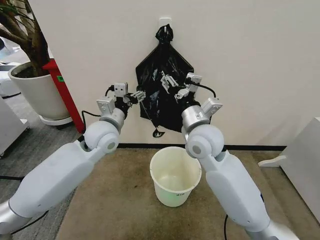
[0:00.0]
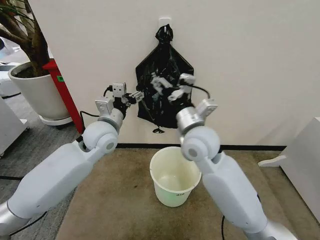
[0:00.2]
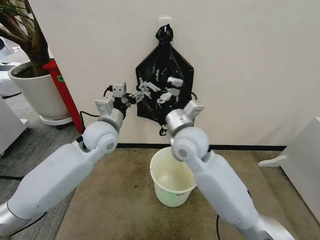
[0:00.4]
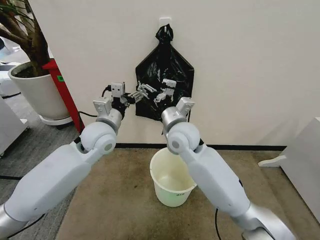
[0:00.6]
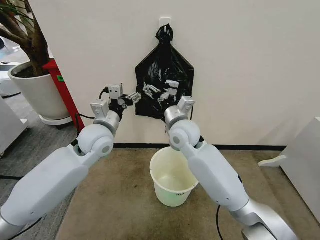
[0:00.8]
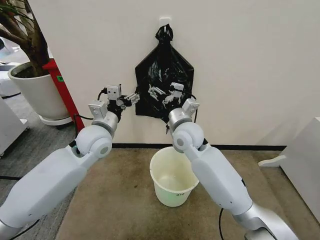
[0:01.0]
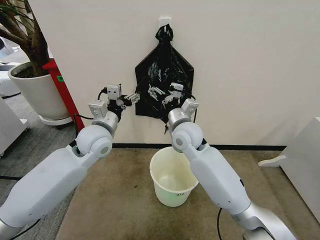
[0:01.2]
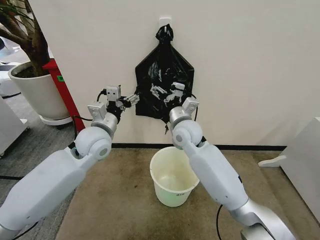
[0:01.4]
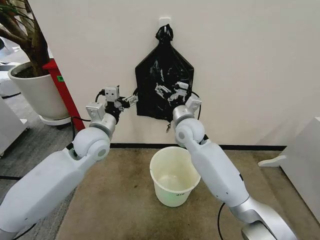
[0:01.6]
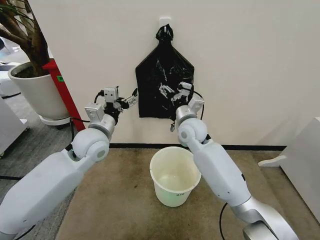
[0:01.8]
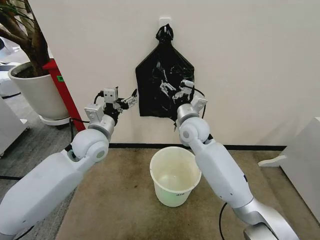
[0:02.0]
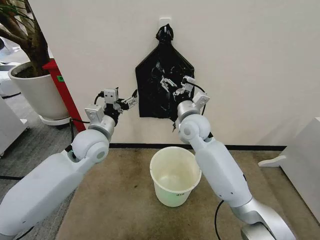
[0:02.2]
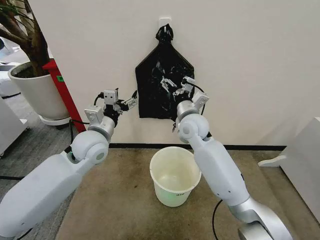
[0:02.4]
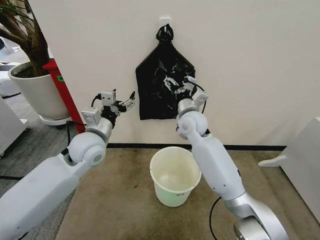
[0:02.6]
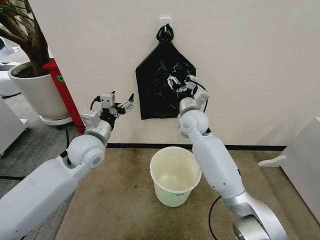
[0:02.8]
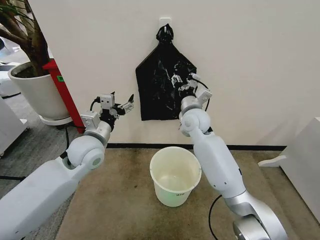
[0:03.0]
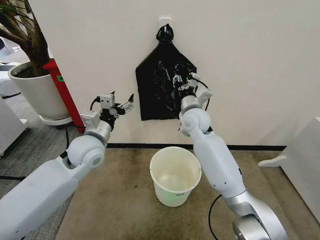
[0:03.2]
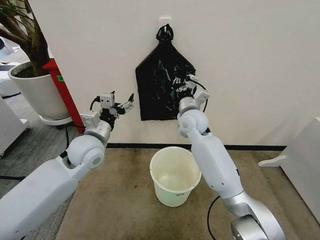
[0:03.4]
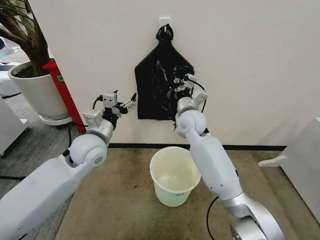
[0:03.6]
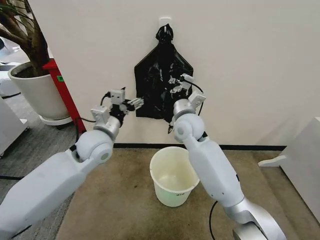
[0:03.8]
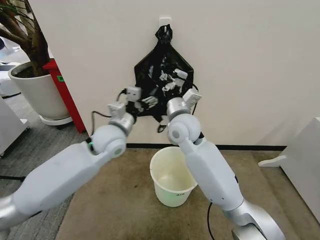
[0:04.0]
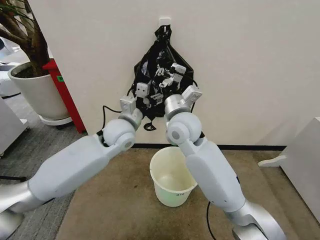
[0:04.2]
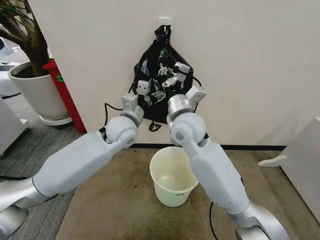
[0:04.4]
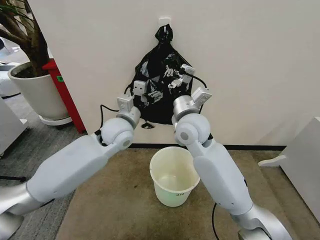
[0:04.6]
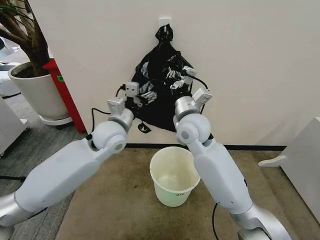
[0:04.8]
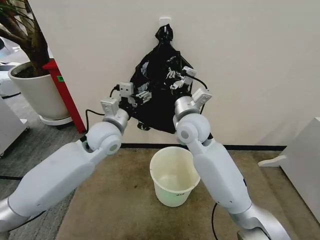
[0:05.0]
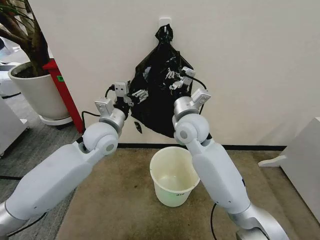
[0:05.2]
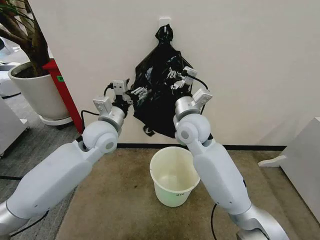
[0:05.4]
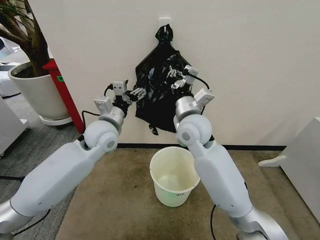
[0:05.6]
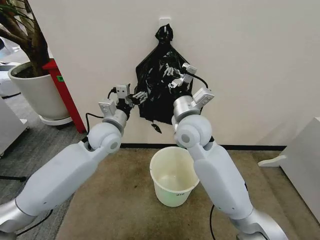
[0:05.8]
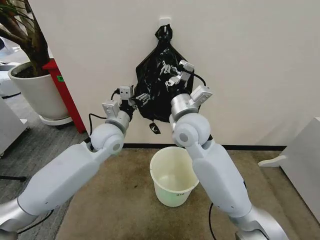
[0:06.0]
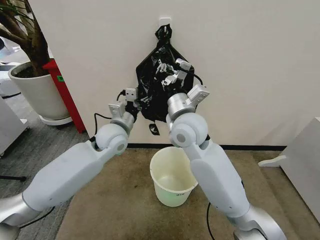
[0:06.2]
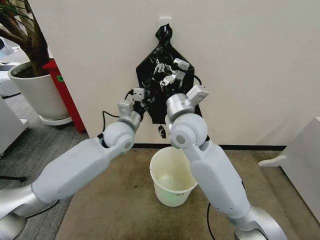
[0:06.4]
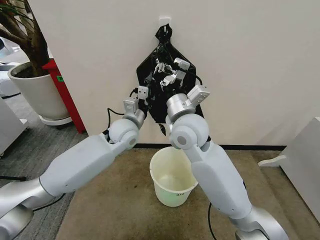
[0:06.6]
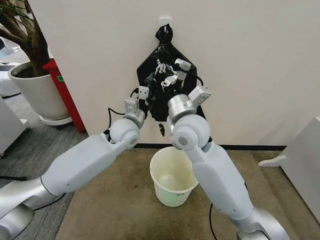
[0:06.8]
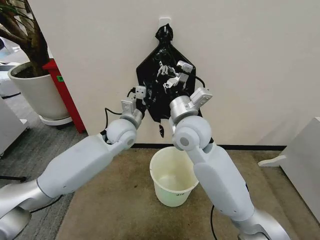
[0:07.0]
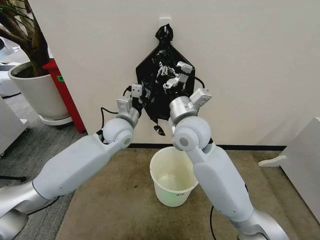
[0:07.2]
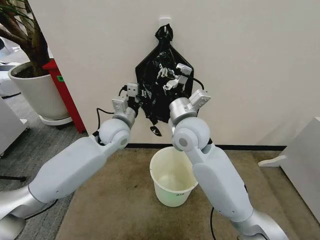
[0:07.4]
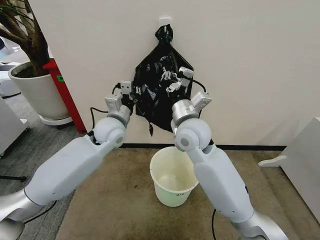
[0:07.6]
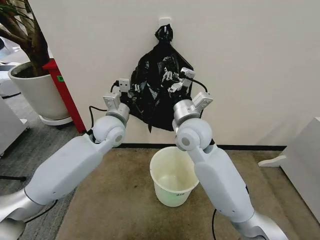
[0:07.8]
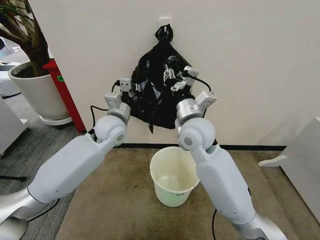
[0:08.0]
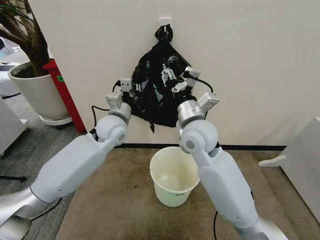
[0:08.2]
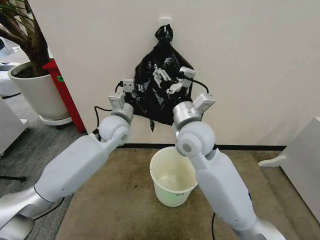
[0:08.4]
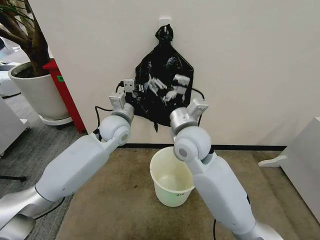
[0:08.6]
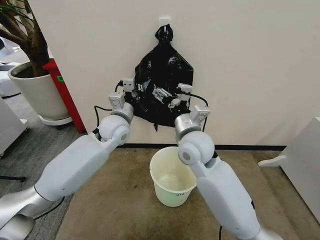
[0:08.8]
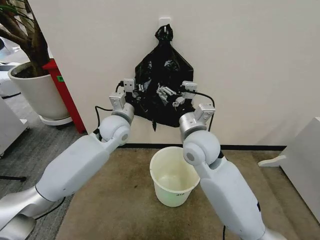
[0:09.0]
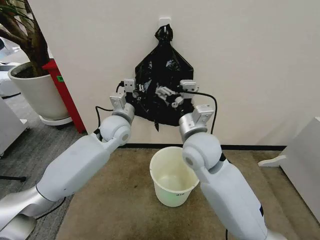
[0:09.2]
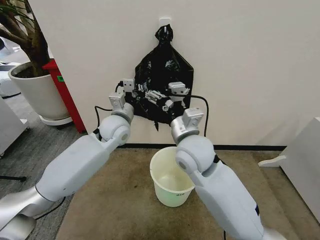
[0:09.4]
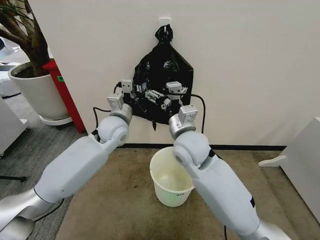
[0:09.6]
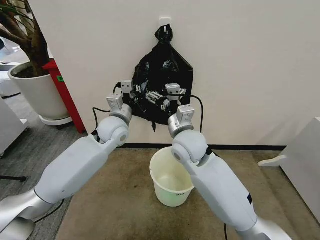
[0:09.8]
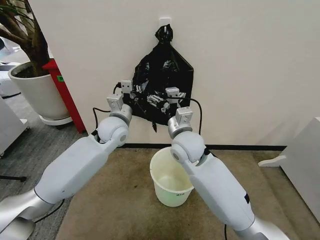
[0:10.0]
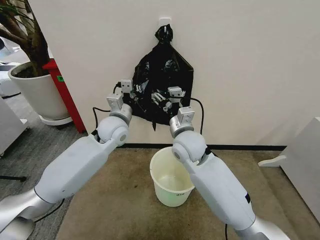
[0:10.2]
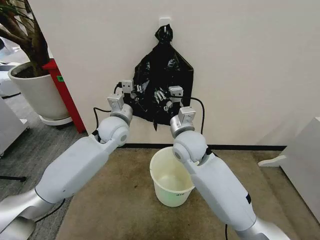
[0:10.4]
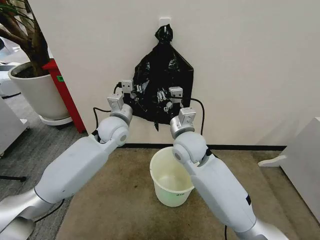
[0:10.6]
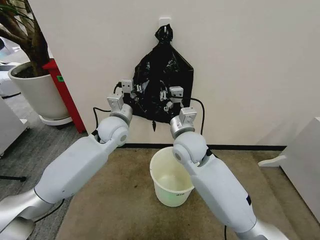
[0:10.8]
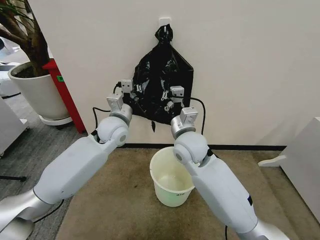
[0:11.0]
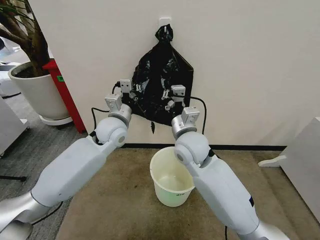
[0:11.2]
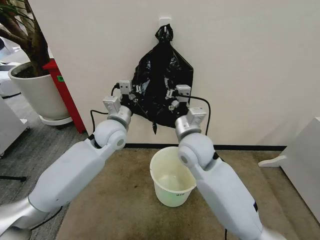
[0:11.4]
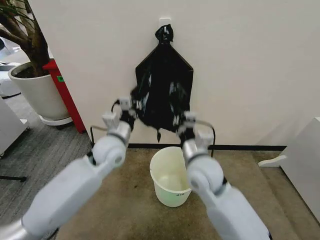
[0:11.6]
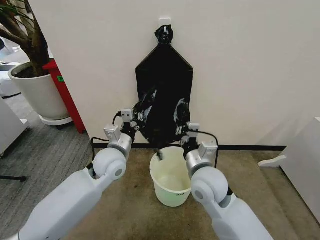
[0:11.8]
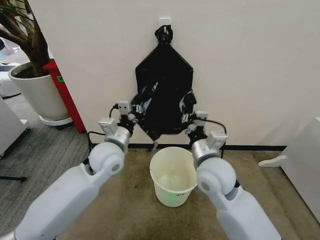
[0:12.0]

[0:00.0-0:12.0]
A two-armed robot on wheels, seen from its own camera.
Task of the whole recording: Place the garbage bag over the trash bin.
0:00.0 to 0:01.6: The right gripper is displaced forward and downward by roughly 10 cm.
0:01.6 to 0:03.0: The right gripper closes.
0:03.0 to 0:04.4: The left gripper heads to the right and forward, covering approximately 10 cm. Meanwhile the right gripper travels backward by about 10 cm, and closes its fingers.
0:06.0 to 0:07.6: The left gripper closes.
0:07.6 to 0:09.0: The right gripper opens.
0:09.0 to 0:10.4: The right gripper closes up.
0:10.4 to 0:12.0: The left gripper shifts about 10 cm backward. Meanwhile the right gripper shifts about 10 cm backward and to the right, and closes.

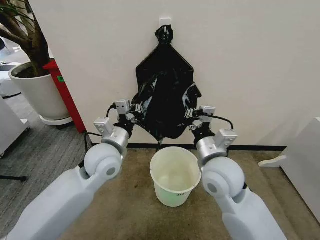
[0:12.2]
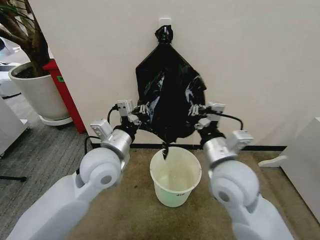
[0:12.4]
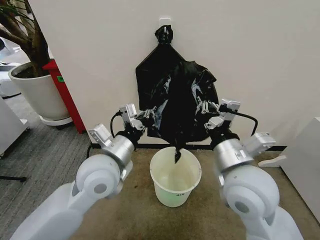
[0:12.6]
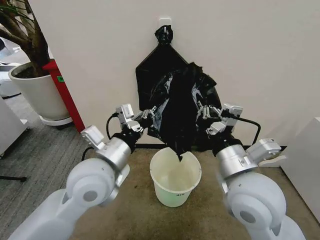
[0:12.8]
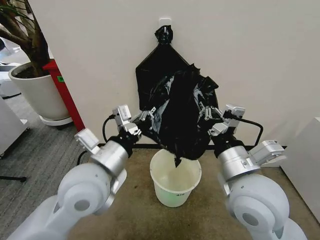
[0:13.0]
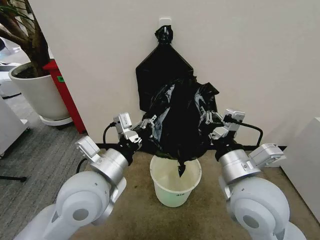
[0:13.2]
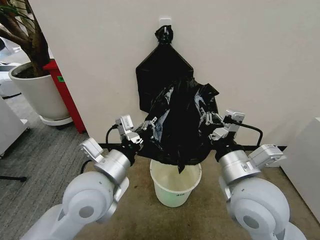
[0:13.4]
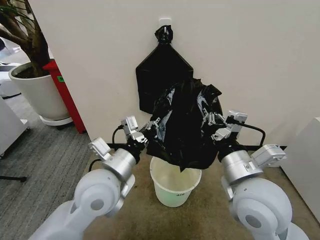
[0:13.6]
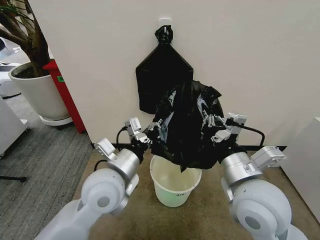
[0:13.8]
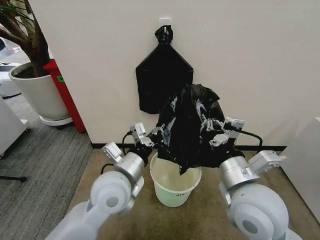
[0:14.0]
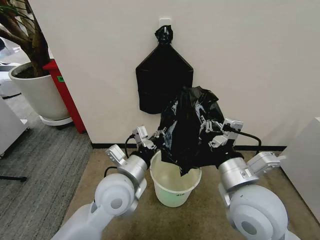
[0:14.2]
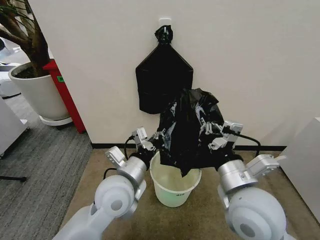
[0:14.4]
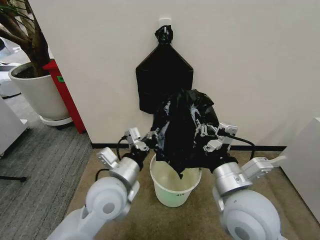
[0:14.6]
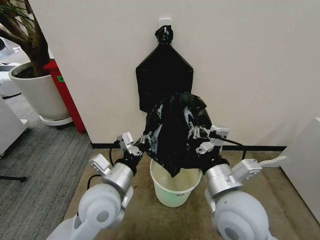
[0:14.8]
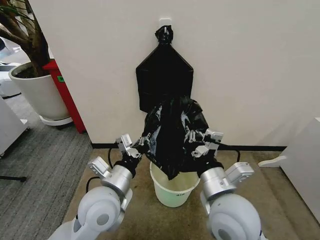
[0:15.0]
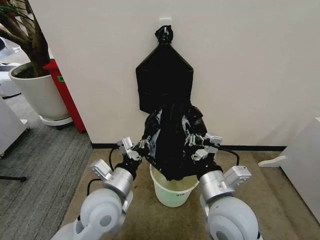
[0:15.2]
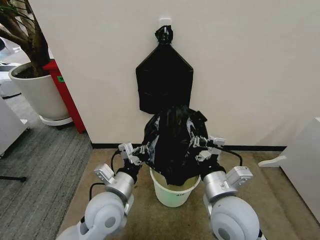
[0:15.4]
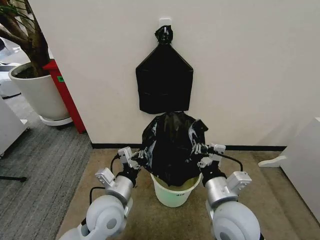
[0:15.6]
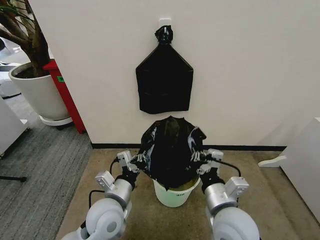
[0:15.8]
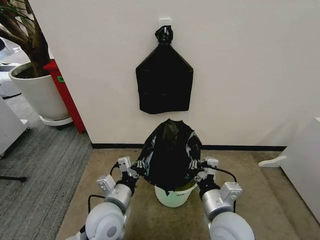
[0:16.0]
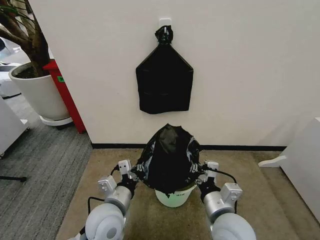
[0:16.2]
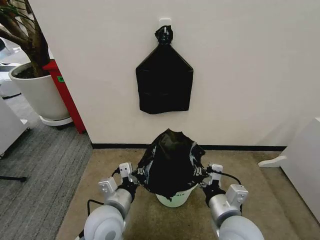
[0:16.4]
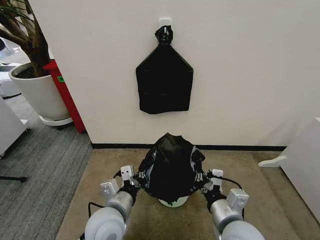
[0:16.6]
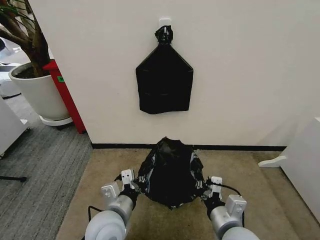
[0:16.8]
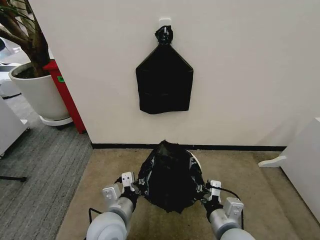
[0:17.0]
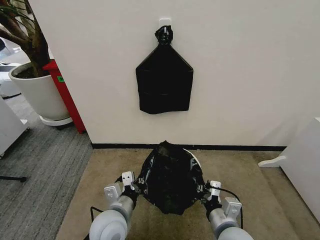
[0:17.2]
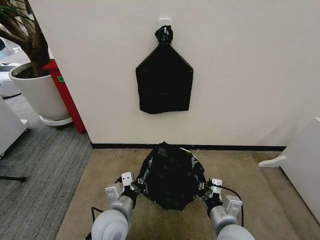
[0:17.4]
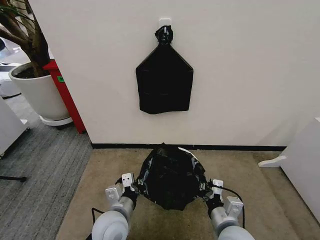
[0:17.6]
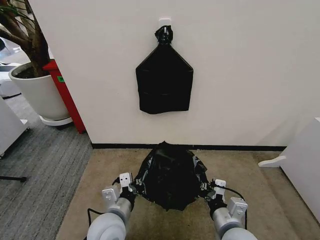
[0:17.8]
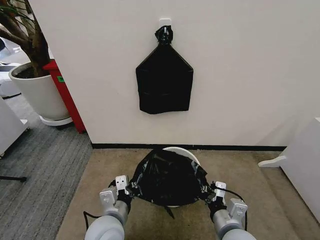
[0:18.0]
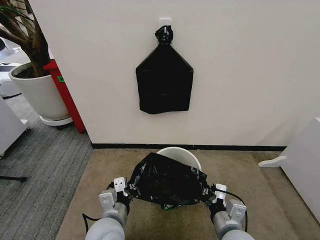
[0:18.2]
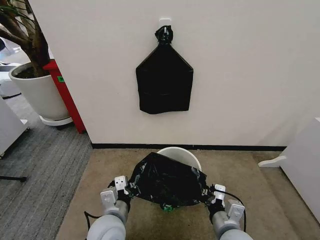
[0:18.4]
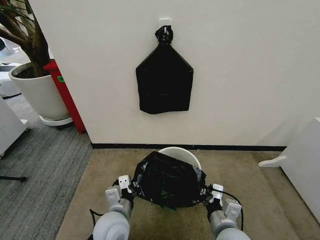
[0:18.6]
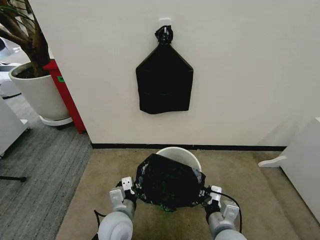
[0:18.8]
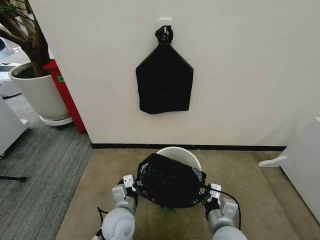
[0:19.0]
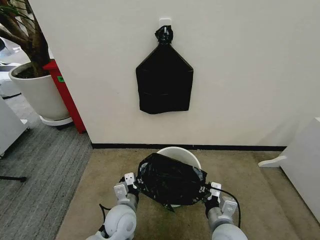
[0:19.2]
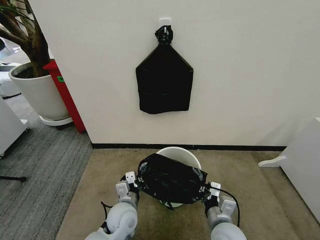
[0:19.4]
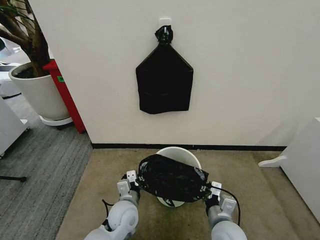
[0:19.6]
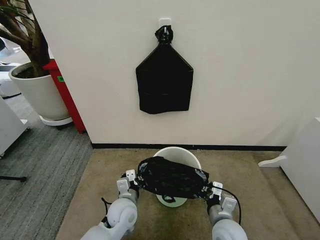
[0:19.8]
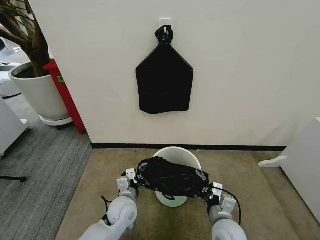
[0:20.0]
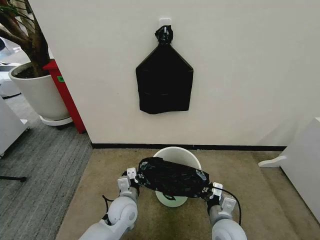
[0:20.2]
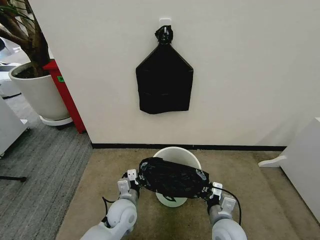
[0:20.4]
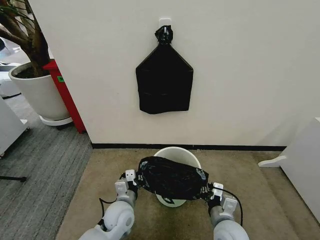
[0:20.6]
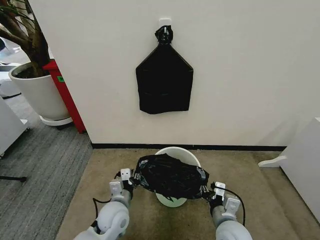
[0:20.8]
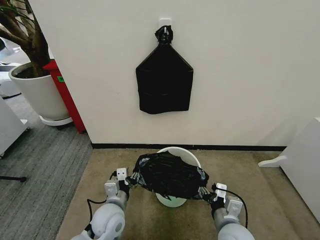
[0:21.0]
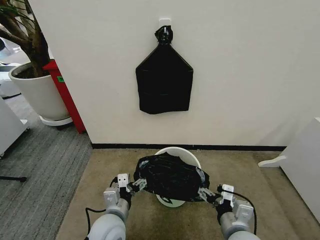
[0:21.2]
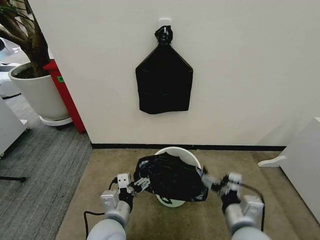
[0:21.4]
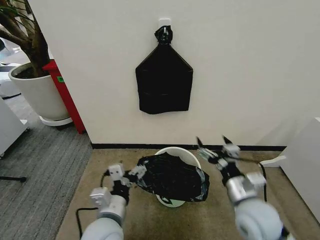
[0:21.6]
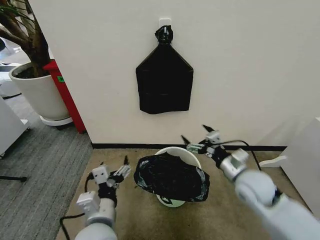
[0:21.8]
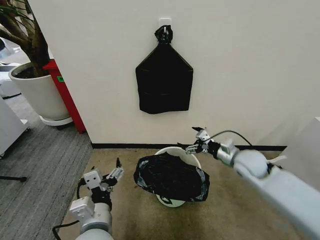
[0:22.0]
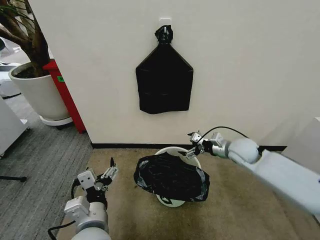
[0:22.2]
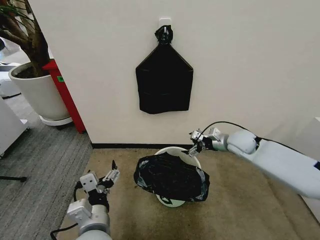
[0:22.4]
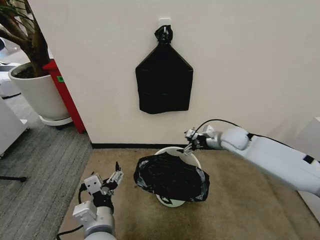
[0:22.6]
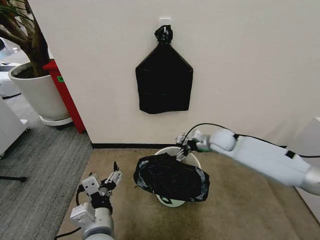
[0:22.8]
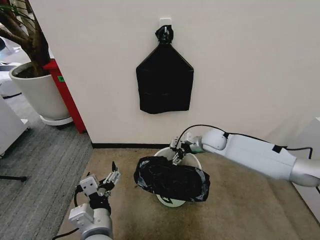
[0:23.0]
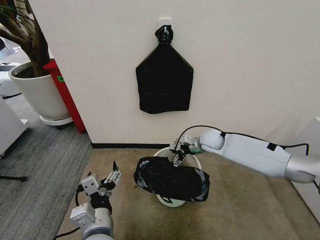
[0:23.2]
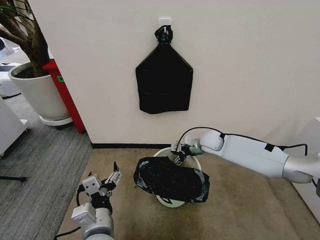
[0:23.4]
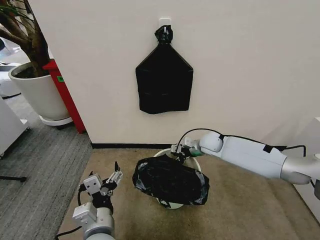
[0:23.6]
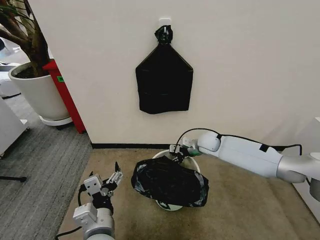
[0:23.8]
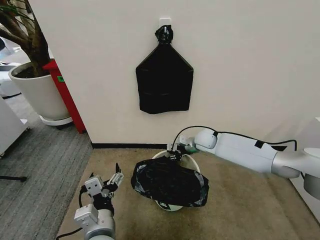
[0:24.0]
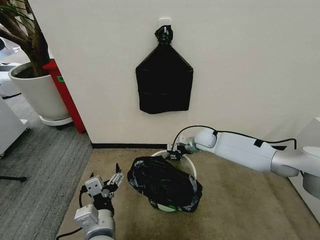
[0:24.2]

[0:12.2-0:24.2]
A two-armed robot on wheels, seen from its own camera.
Task of the whole recording: Place the garbage bag over the trash bin.
0:12.2 to 0:13.8: Both grippers move backward, about 10 cm.
0:13.8 to 0:15.2: Both grippers move downward, approximately 5 cm.
0:15.2 to 0:16.6: The right gripper travels downward by some 5 cm. Meanwhile the left gripper moves about 5 cm.
0:16.6 to 0:18.2: The right gripper moves downward, approximately 5 cm.
0:18.2 to 0:19.8: The left gripper goes some 10 cm downward and forward; the right gripper travels downward by roughly 5 cm.
0:19.8 to 0:21.2: The right gripper shifts about 5 cm upward, and opens. Meanwhile the left gripper moves backward, some 5 cm, and opens its fingers.
0:21.2 to 0:22.6: The left gripper is displaced upward and backward by some 10 cm. Meanwhile the right gripper goes roughly 30 cm forward.
0:22.6 to 0:24.2: The right gripper goes about 10 cm to the left and downward, and closes up.
